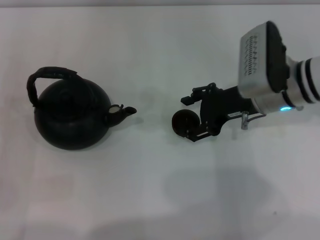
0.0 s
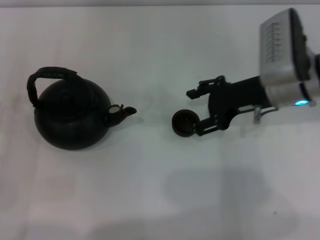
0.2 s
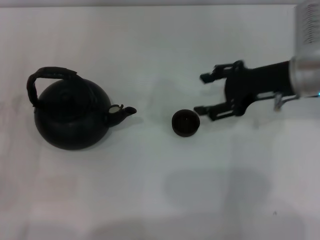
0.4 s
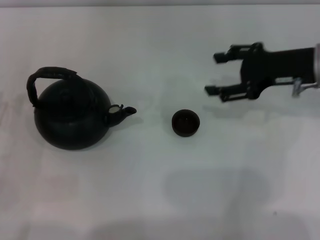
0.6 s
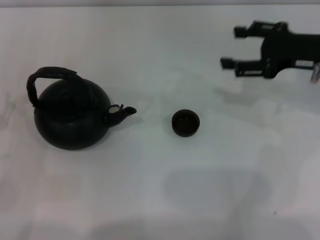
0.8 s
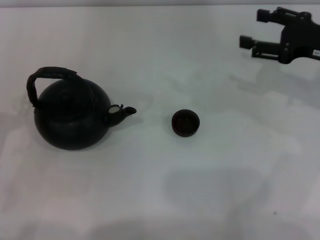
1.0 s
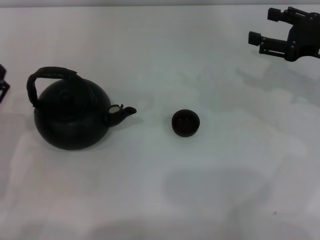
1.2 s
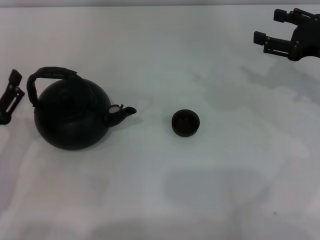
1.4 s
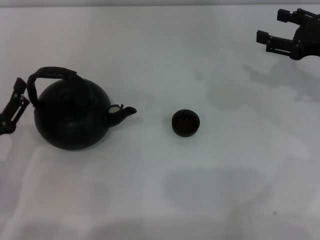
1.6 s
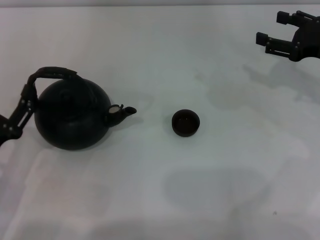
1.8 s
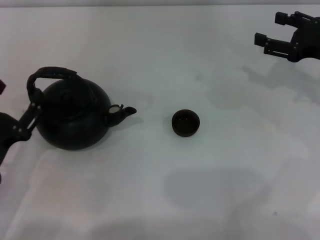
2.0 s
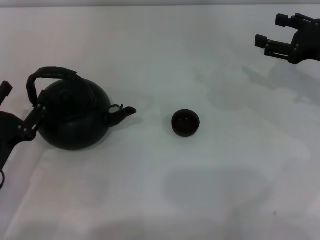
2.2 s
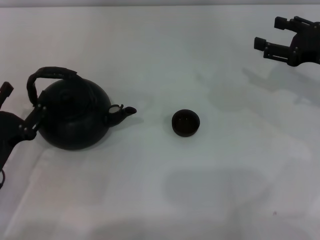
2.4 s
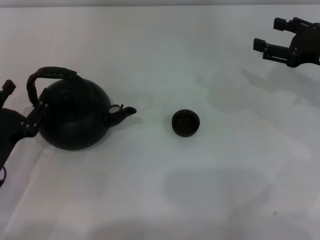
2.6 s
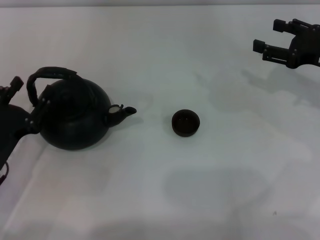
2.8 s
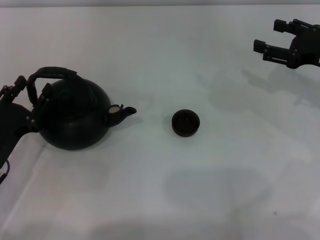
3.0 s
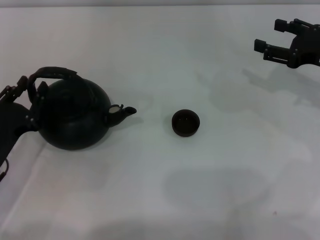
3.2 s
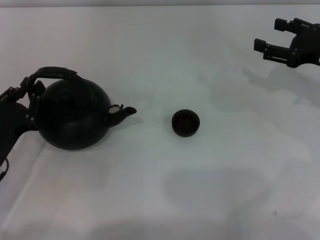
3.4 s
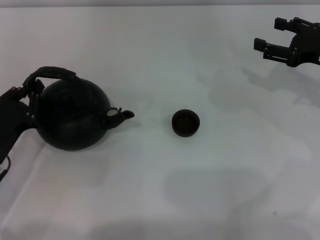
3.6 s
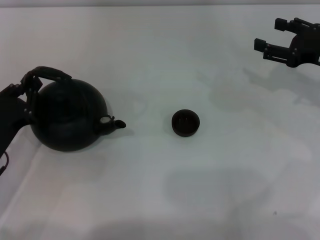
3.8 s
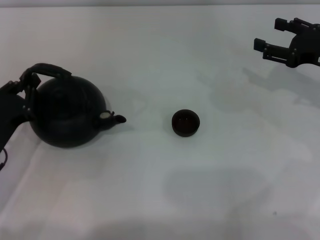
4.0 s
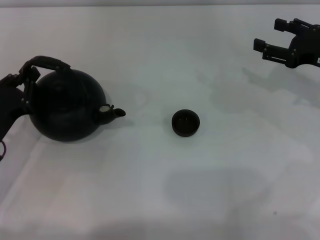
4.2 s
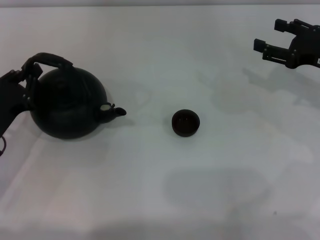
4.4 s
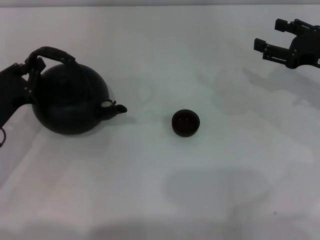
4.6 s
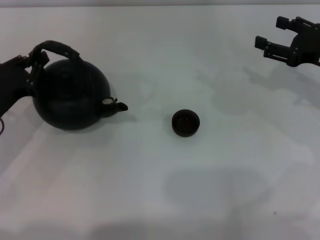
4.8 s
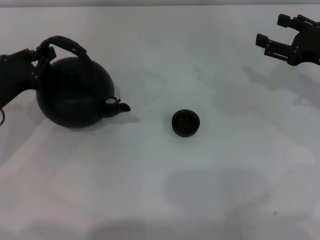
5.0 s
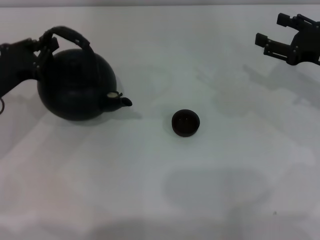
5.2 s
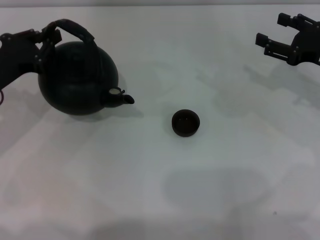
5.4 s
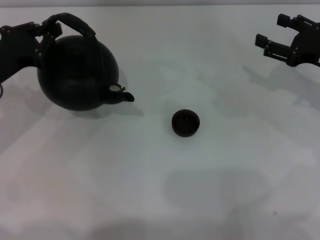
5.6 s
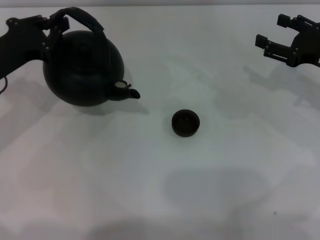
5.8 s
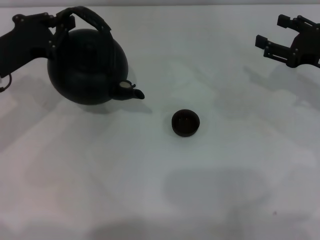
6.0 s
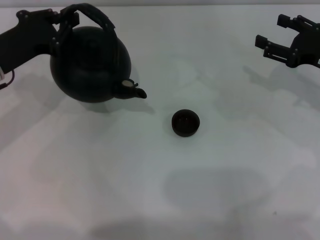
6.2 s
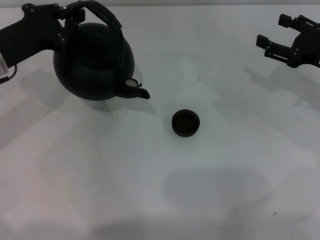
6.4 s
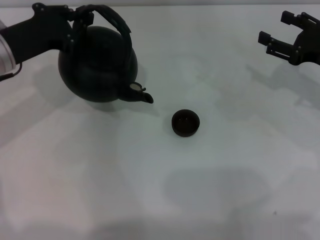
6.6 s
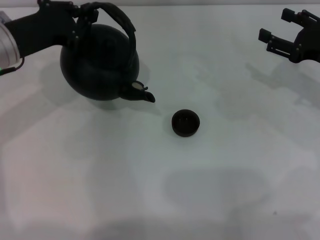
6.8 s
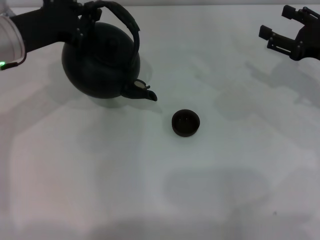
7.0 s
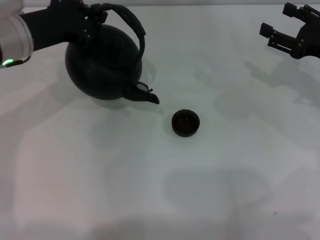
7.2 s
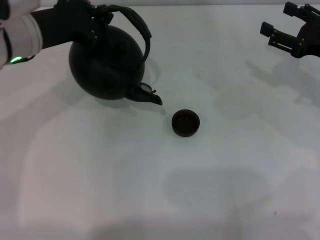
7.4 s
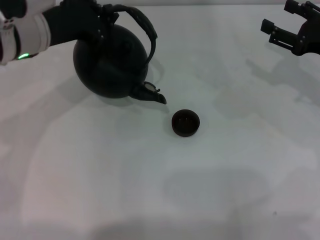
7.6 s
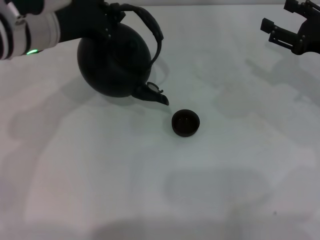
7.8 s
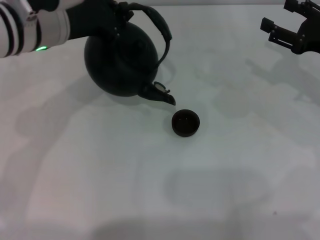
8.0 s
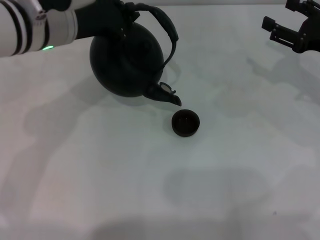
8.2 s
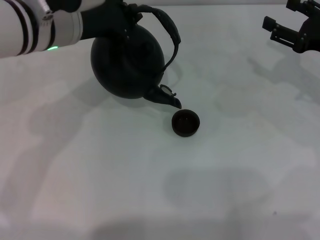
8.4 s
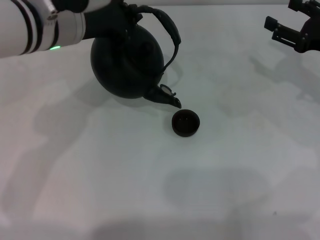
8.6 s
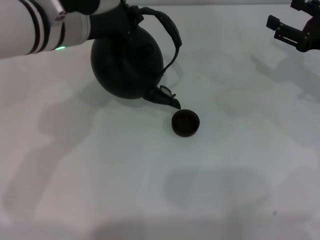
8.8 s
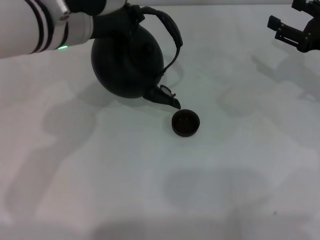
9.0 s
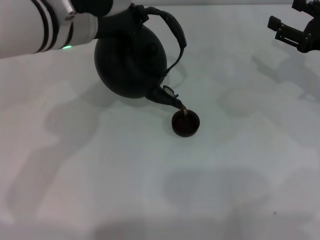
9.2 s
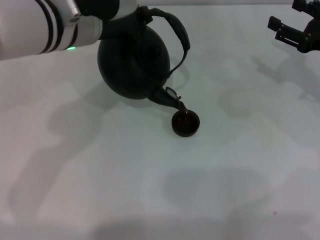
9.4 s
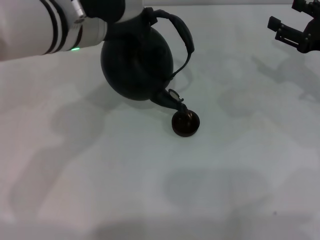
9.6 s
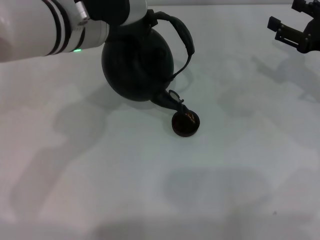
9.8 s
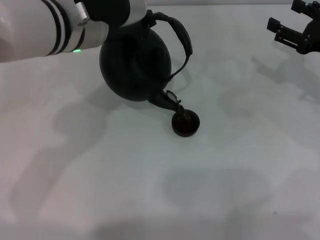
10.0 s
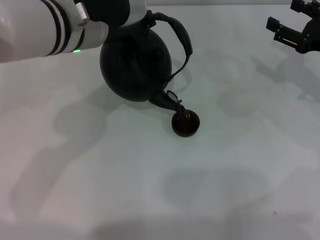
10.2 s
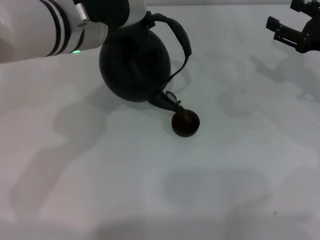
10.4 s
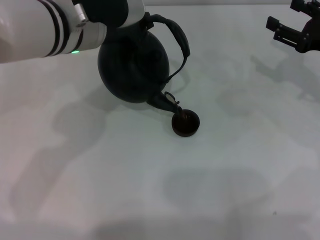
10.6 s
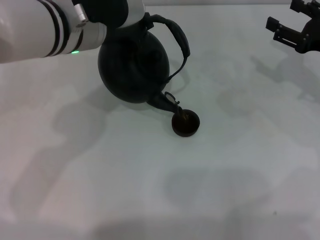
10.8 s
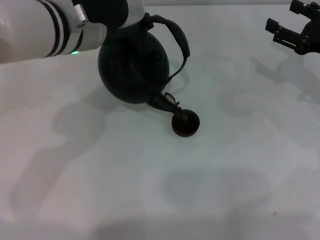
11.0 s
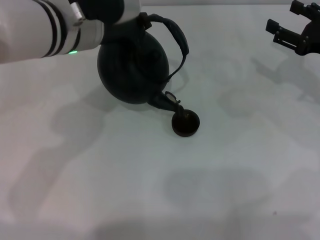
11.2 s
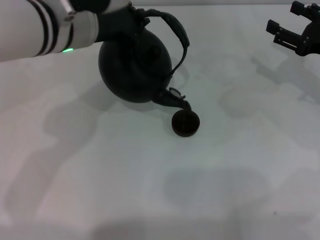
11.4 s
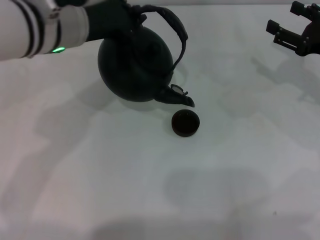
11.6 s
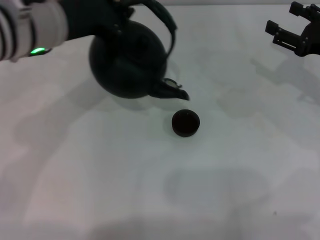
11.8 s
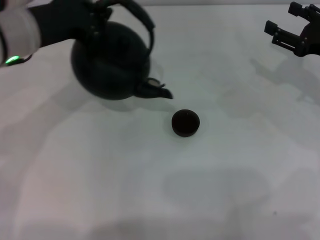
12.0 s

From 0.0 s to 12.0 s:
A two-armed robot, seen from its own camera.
Task of the whole recording: Grasp the handle of the teapot with one hand and pour tea into the teacup.
Step, from 0.6 s to 5.0 s: Pick up the teapot with the left gripper.
Step, from 5.2 s to 11.6 s: Pour tea into the teacup with the left gripper.
From 0.0 s to 1.6 s: The left gripper moves to the right, some 5 cm, while the right gripper is displaced to the right by about 15 cm.
From 1.6 s to 3.0 s: The grippers make only small movements.
From 3.0 s to 4.4 s: The left gripper closes up.
From 4.4 s to 6.0 s: The left gripper is displaced forward and upward by some 10 cm.
From 6.0 s to 7.6 s: The left gripper travels to the right and upward by about 10 cm.
From 7.6 s to 9.0 s: The left gripper goes about 5 cm to the right.
From 9.0 s to 10.4 s: The grippers move only a little.
From 10.4 s to 12.0 s: The left gripper is displaced to the left by approximately 10 cm.

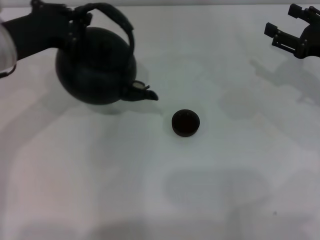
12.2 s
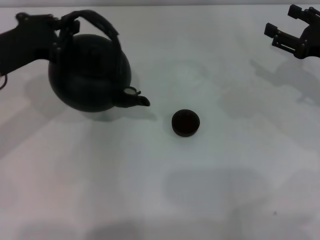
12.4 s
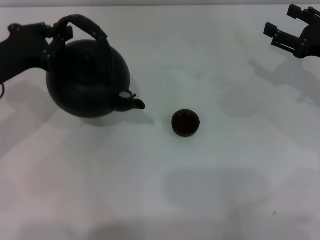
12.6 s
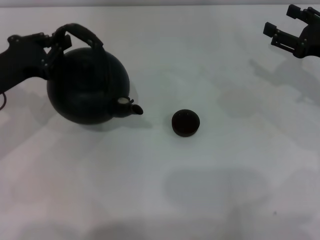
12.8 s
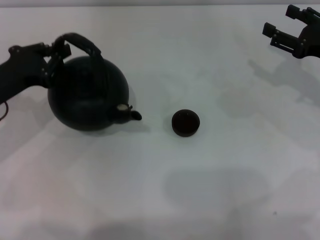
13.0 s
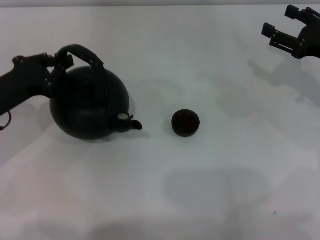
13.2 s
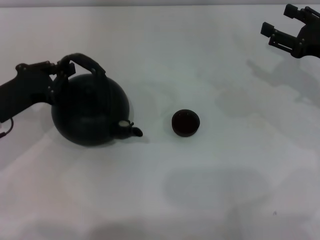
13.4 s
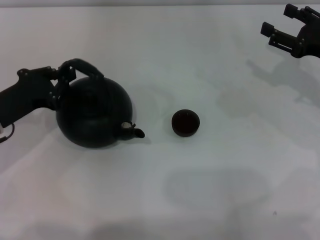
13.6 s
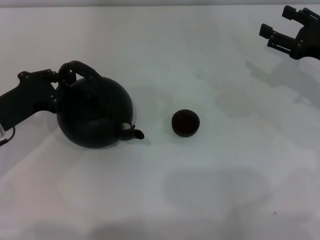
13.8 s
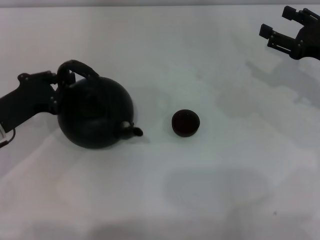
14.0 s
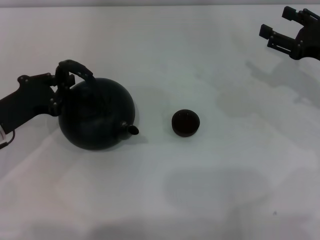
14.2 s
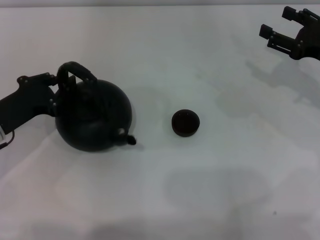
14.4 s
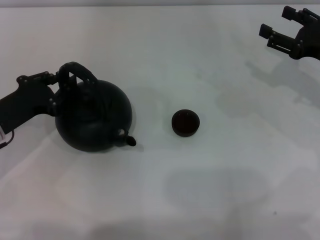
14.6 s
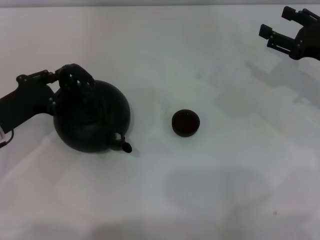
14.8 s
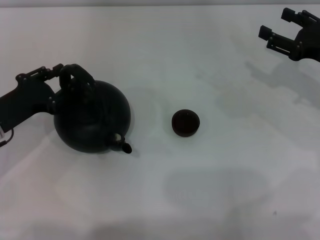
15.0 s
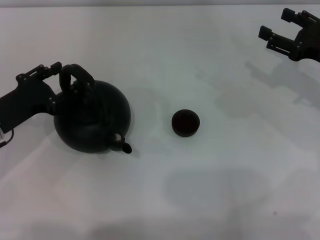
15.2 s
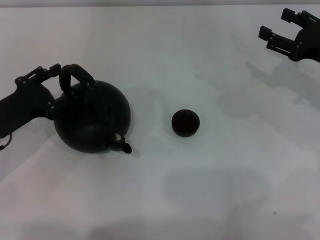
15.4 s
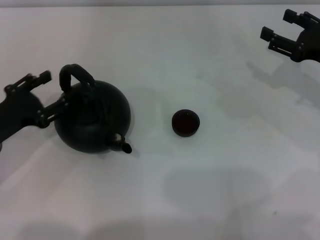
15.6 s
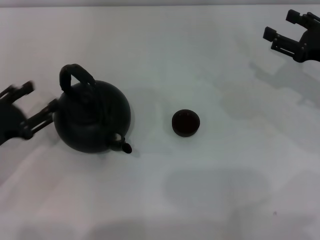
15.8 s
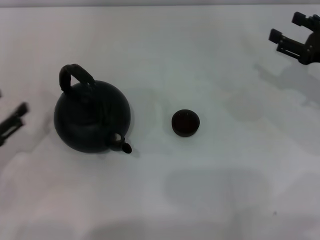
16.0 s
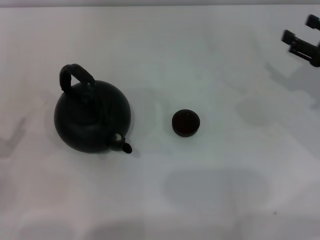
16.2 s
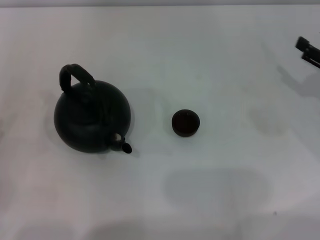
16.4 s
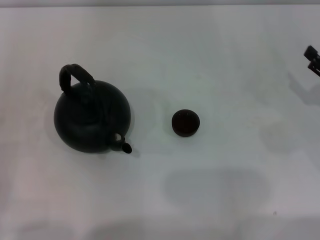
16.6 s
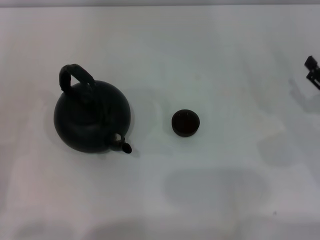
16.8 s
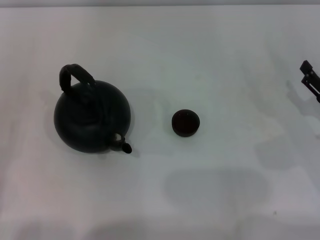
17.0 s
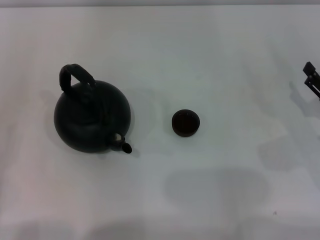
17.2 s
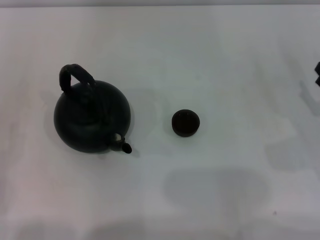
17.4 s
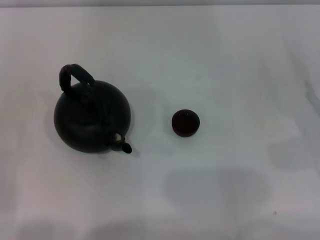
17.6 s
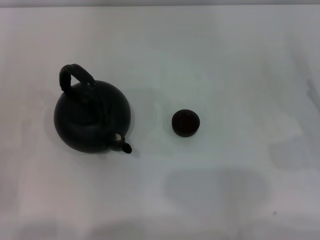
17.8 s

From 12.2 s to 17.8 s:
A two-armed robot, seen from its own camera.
Task of the whole recording: Grasp the handle of the teapot with one hand and pour tea into the teacup.
Step, from 12.2 s to 15.8 s: Put down the teapot with the left gripper.
From 12.2 s to 13.6 s: The left gripper goes roughly 10 cm downward and to the left.
From 13.6 s to 15.0 s: Both grippers stay put.
From 15.0 s to 16.4 s: The right gripper moves about 5 cm. The left gripper is displaced backward and to the left by about 15 cm, and opens its fingers.
